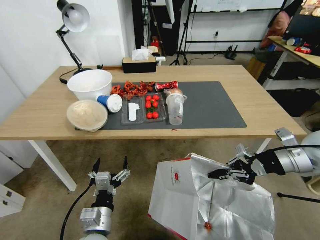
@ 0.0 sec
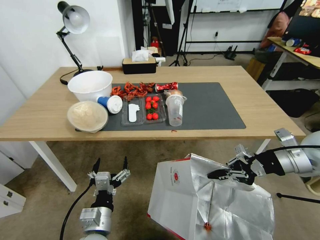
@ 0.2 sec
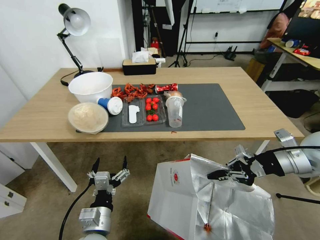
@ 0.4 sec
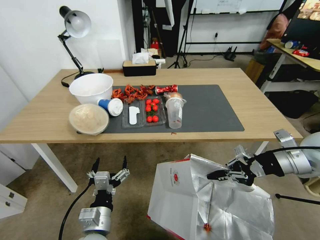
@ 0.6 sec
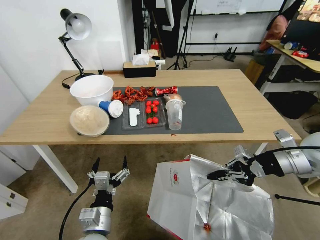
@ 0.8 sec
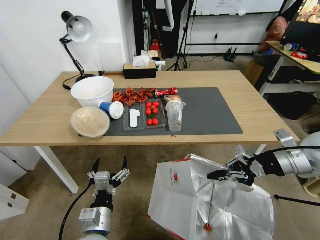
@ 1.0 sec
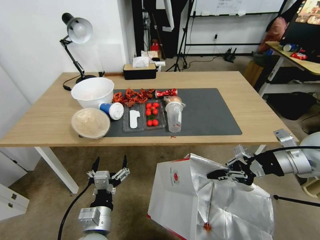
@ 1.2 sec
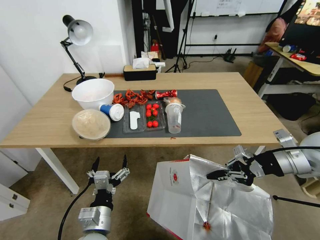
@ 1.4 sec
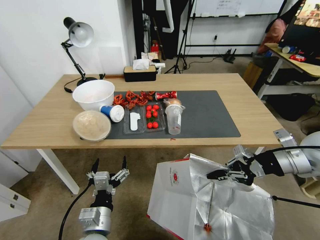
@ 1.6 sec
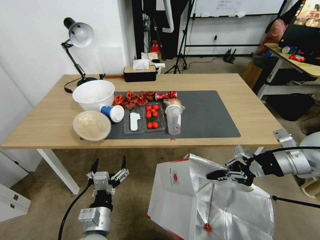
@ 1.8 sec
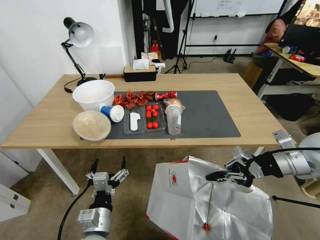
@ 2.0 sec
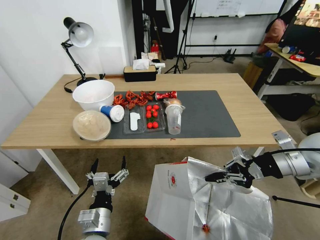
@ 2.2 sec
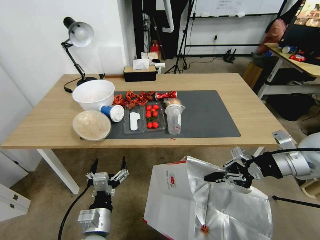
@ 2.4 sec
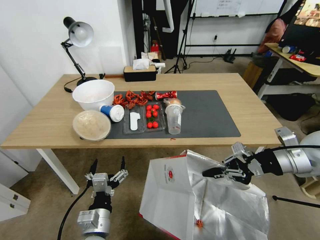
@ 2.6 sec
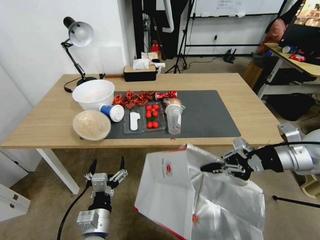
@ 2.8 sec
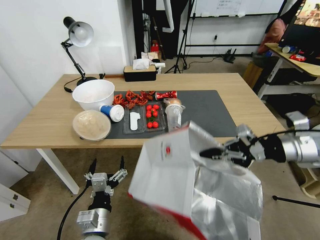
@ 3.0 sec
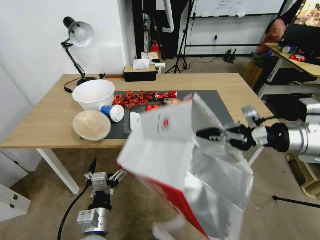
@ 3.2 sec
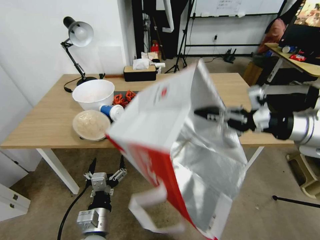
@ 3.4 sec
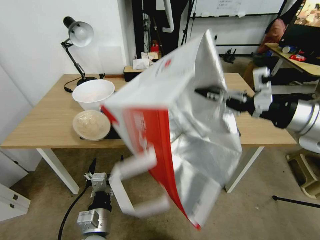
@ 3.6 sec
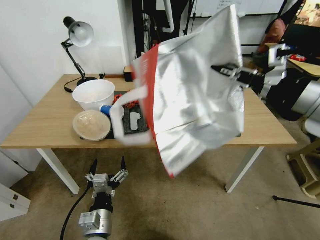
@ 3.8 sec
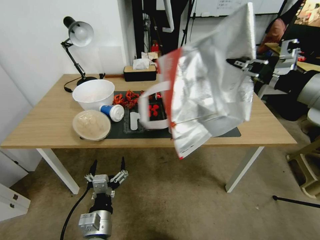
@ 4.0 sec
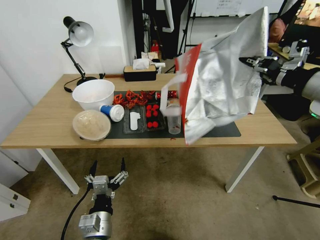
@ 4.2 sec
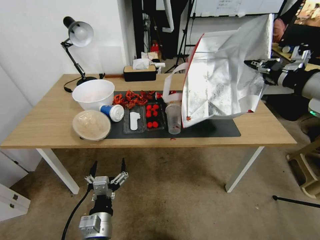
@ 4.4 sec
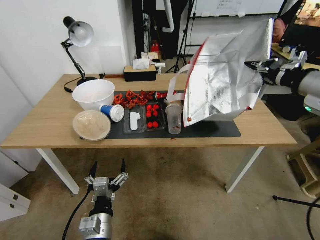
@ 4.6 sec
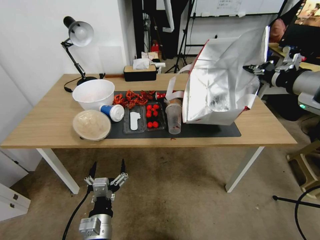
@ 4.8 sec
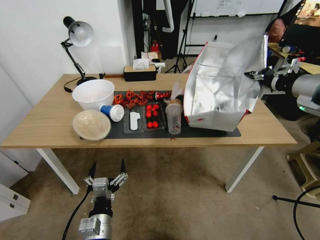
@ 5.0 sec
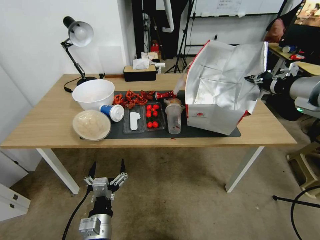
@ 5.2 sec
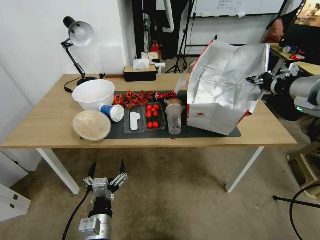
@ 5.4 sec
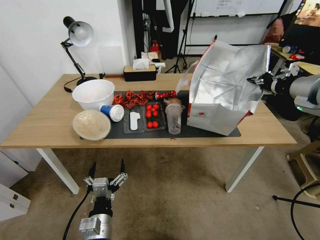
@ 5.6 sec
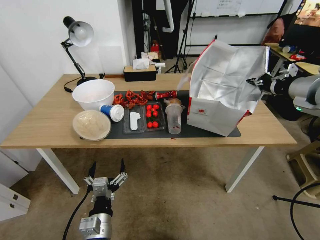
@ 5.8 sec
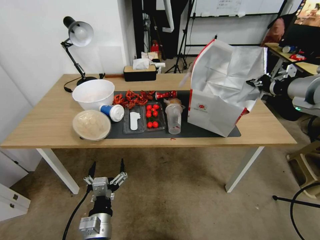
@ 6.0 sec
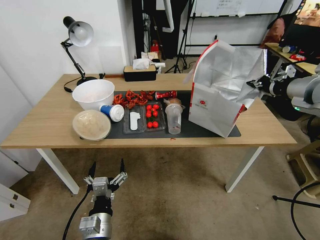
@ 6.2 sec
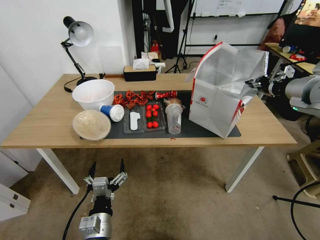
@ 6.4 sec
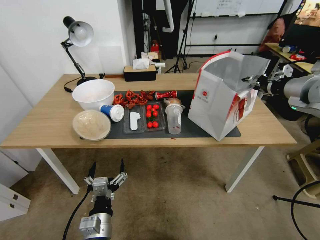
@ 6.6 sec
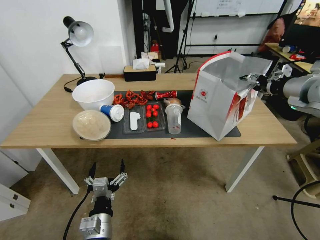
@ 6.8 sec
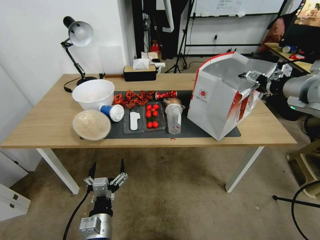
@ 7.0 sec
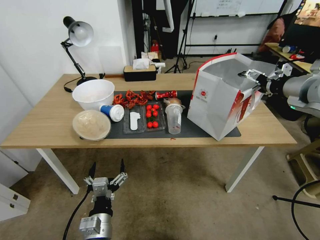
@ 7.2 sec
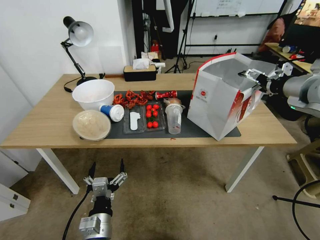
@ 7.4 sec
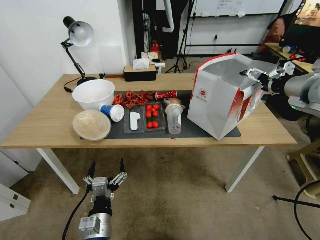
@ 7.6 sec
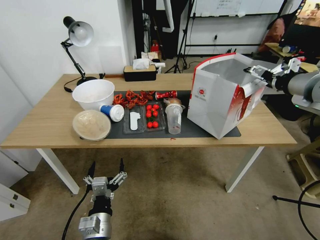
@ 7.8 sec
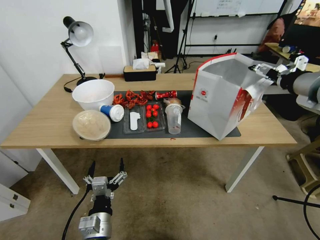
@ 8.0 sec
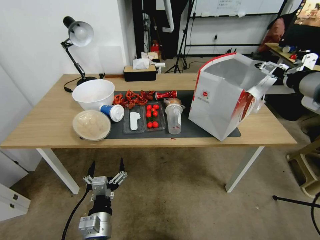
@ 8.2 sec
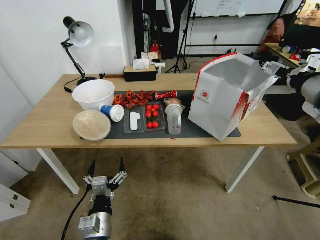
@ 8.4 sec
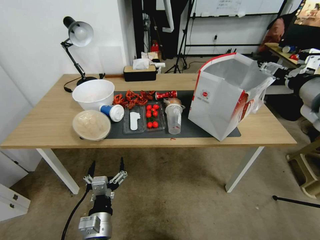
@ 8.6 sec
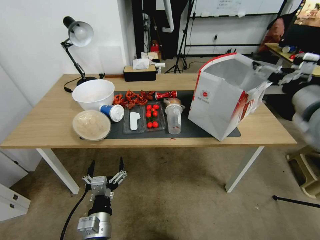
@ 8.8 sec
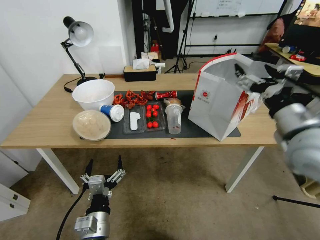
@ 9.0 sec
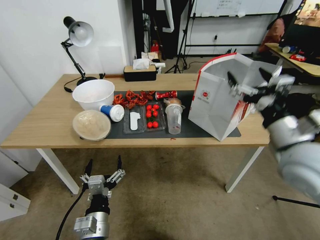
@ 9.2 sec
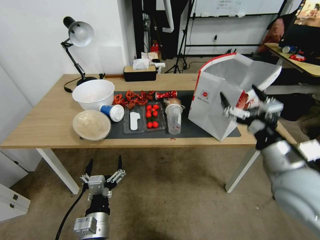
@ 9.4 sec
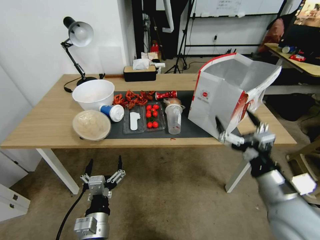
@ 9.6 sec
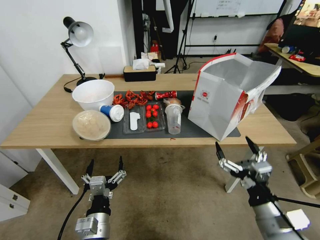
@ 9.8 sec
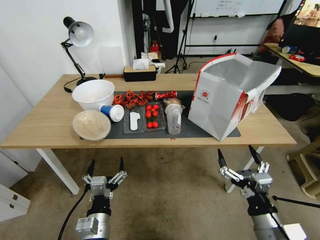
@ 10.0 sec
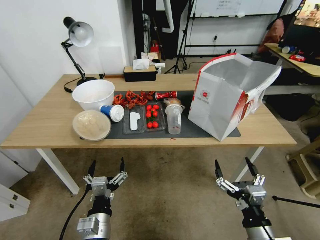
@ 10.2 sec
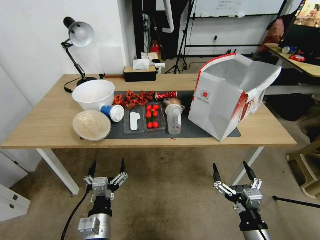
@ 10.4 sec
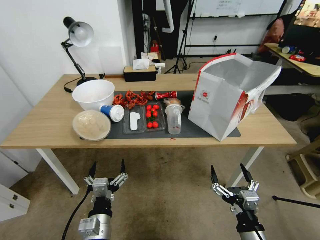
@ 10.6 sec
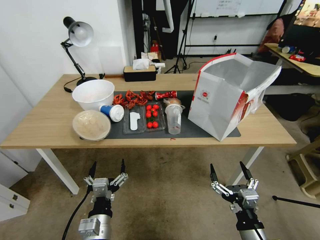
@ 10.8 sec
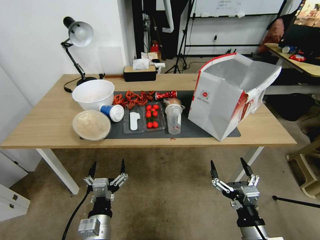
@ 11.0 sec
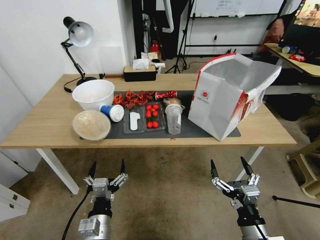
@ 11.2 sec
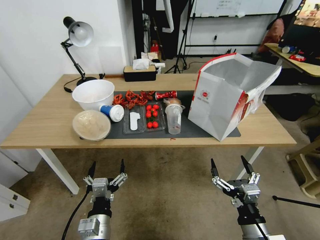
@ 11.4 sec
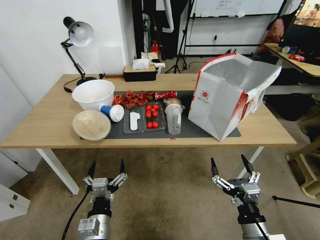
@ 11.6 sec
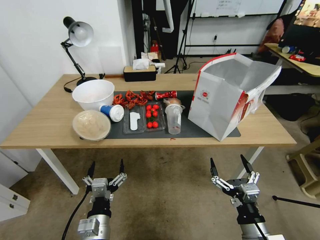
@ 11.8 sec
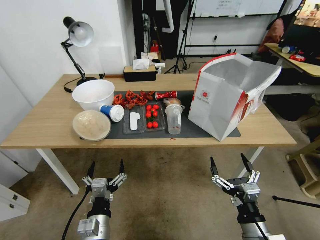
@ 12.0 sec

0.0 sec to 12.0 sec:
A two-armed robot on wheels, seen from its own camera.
Task of the whole recording: Pick up the food delivery bag from the floor and place it on the table.
1.6 sec to 3.0 sec: The grippers stay close to where they were, moving slightly.
3.0 sec to 4.4 sec: The right gripper is displaced upward by about 10 cm.
4.4 sec to 6.0 sec: The right gripper goes roughly 5 cm forward.
6.0 sec to 7.6 sec: The right gripper opens.
7.6 sec to 9.0 sec: The right gripper heads backward, to the left and downward, covering roughly 15 cm.
9.0 sec to 10.4 sec: The right gripper heads downward and backward, covering some 35 cm.
10.4 sec to 12.0 sec: There are only small adjustments of the grippers.

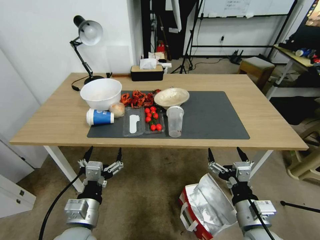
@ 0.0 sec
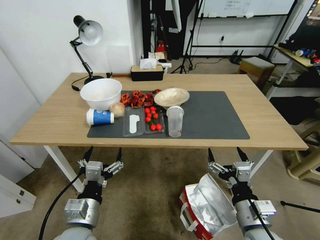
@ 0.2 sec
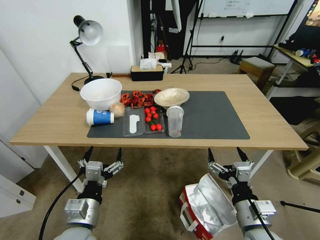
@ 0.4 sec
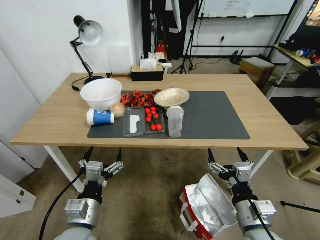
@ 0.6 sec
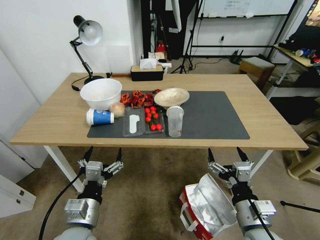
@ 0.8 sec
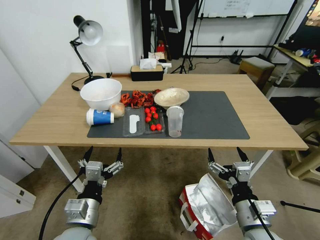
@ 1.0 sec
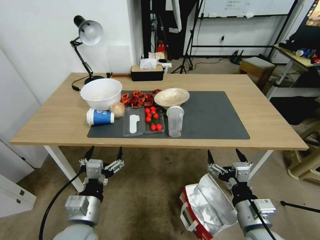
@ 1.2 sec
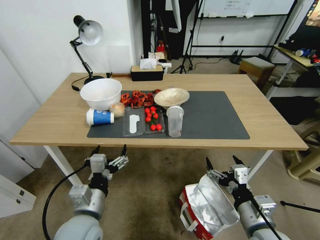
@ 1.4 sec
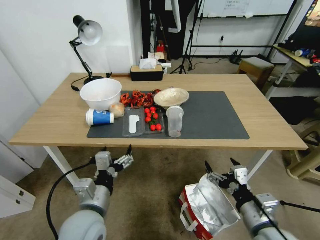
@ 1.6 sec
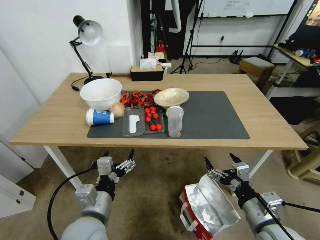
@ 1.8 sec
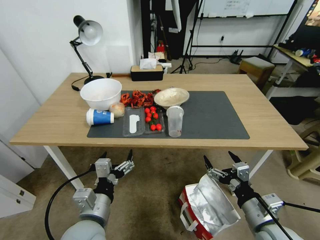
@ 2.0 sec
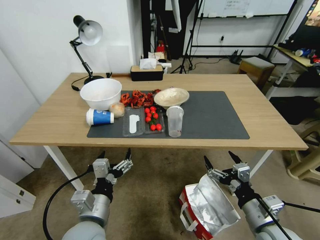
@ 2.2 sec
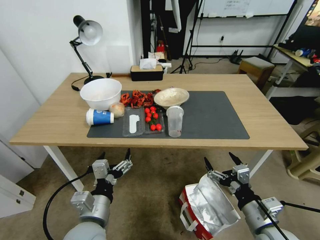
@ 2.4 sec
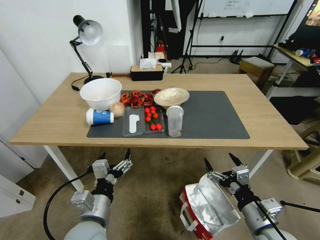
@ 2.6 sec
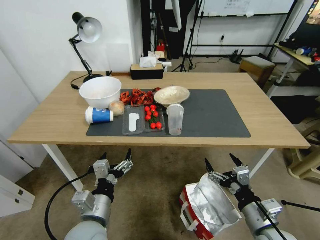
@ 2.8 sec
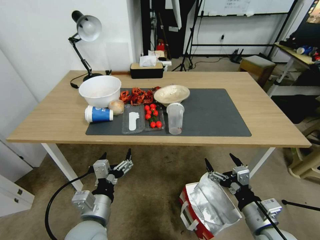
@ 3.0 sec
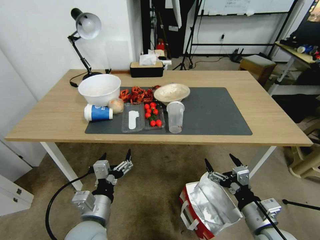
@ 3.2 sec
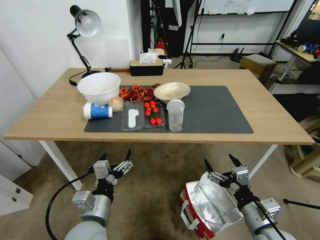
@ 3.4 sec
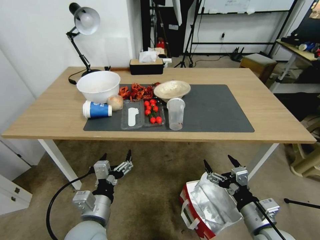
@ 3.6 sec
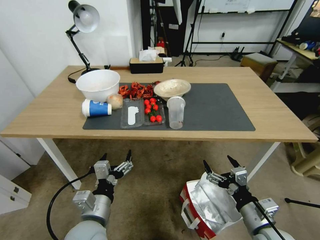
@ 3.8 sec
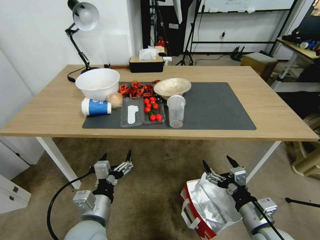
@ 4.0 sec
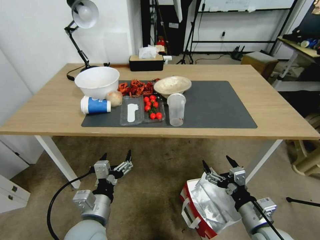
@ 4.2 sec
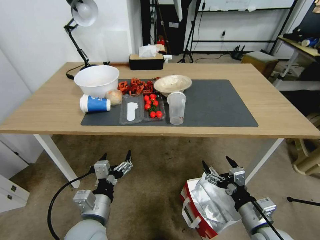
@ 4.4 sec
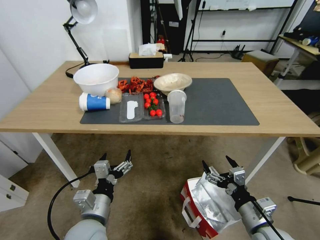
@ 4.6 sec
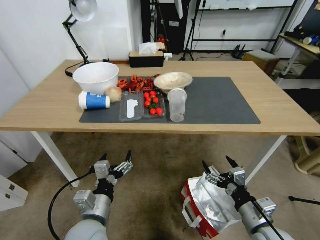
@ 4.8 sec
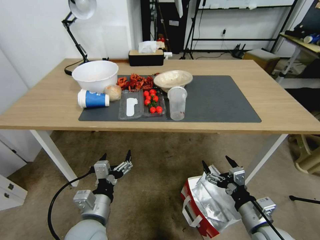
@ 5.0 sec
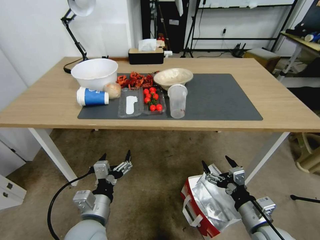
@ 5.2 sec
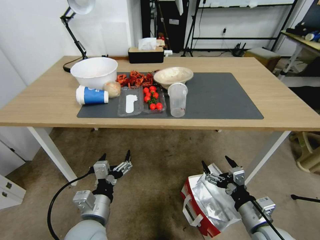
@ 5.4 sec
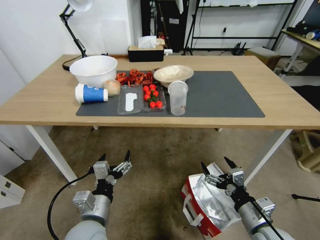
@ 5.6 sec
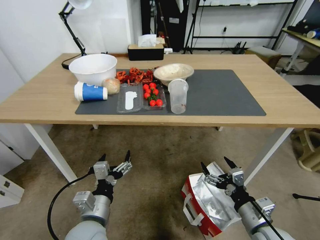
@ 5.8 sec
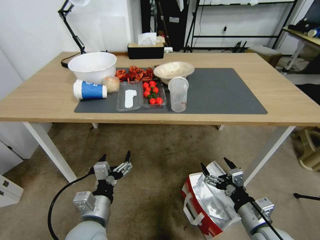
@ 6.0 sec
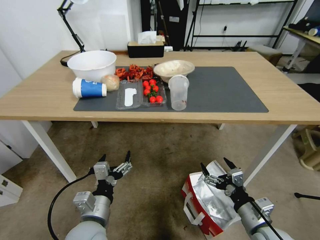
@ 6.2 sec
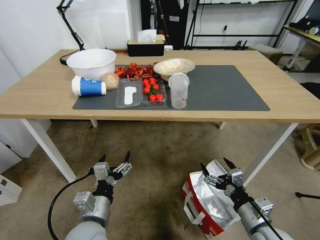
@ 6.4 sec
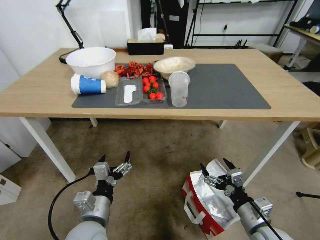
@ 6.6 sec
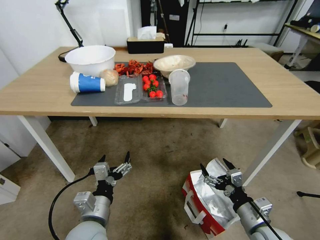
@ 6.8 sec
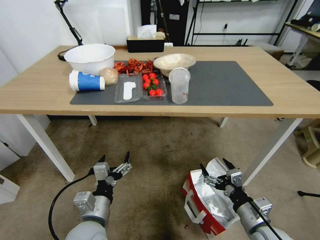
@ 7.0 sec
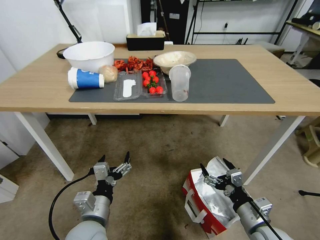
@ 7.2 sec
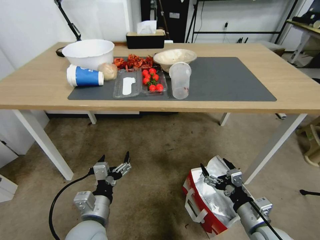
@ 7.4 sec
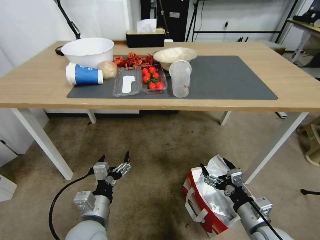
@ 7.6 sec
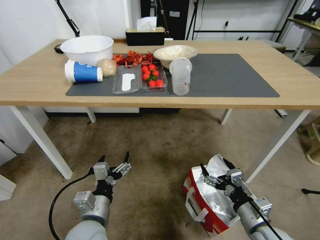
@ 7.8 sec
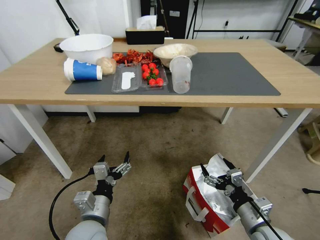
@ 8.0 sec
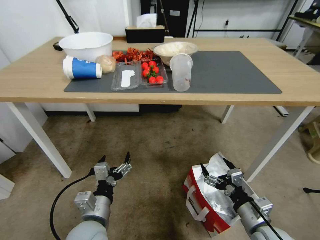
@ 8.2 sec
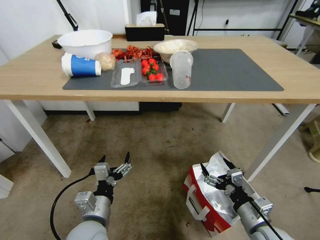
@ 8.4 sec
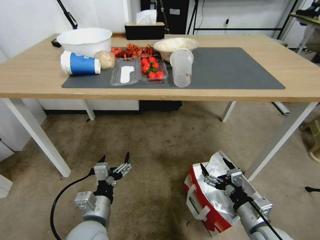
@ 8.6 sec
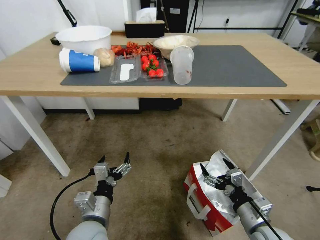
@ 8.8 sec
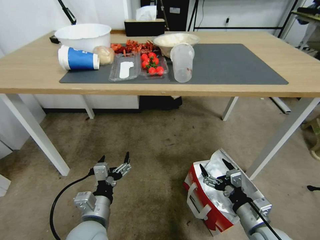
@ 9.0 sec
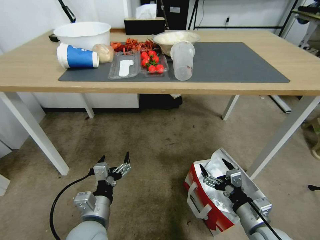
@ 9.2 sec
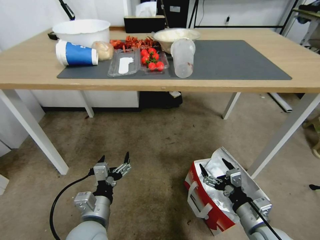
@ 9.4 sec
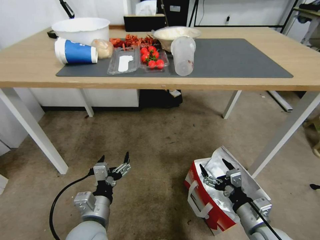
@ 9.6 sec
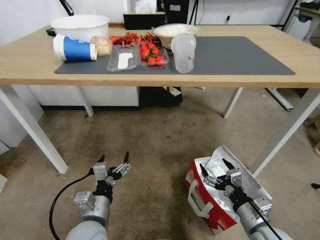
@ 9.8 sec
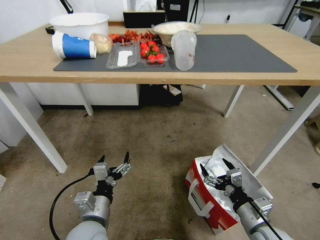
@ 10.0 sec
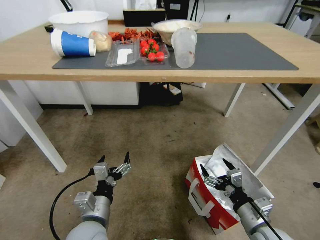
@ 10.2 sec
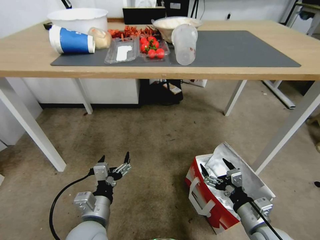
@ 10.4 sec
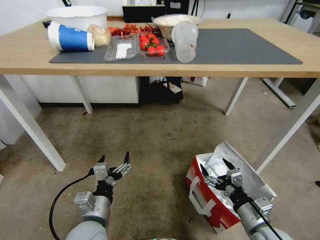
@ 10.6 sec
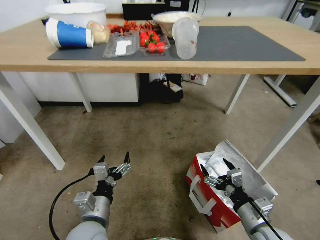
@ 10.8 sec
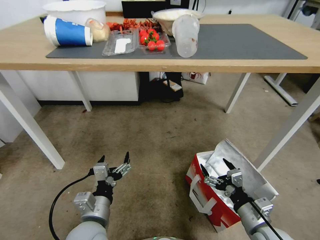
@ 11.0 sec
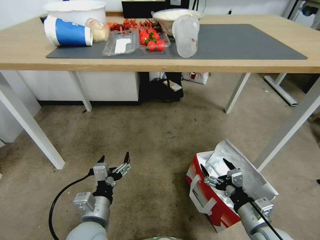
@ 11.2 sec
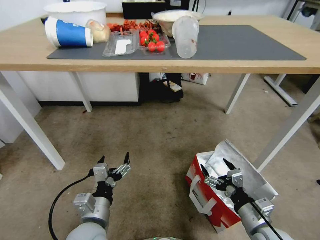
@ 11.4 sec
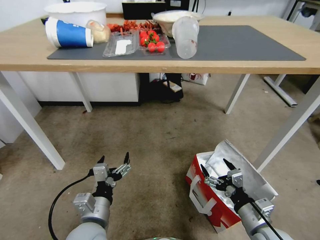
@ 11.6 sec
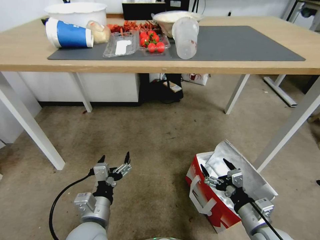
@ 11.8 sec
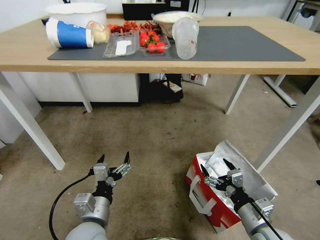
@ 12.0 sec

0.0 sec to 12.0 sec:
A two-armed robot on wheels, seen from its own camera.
Task of the whole recording: Pick up the food delivery bag from the floor and place it on the table.
10.4 sec to 12.0 sec: Neither gripper changes place.
